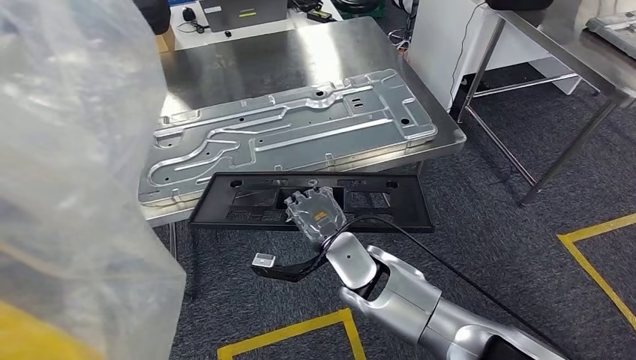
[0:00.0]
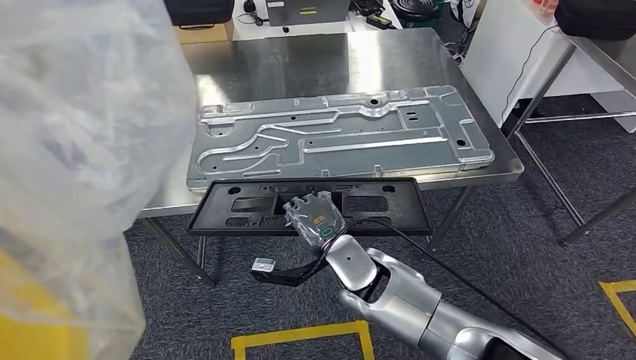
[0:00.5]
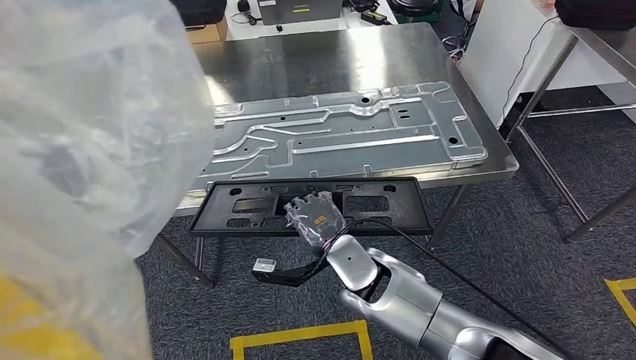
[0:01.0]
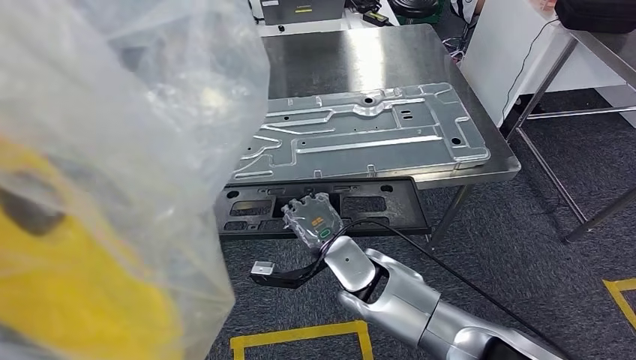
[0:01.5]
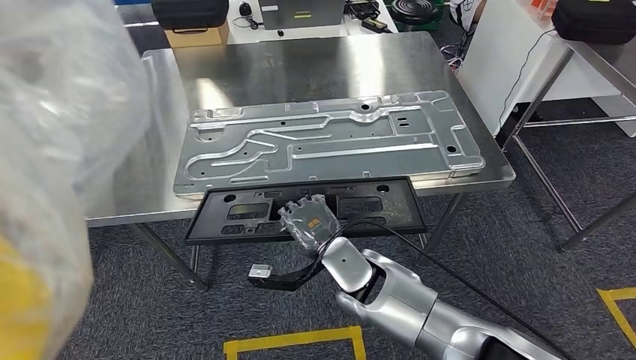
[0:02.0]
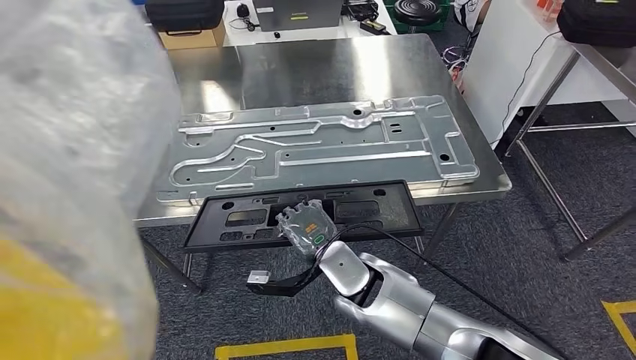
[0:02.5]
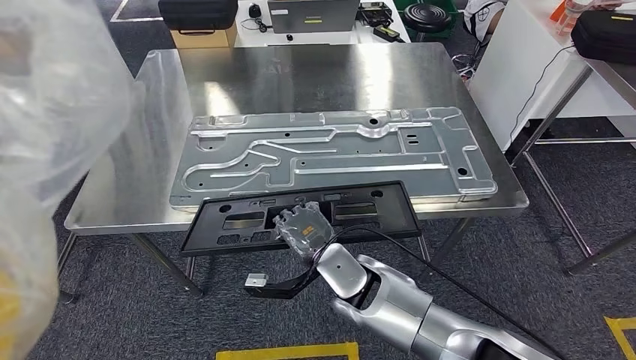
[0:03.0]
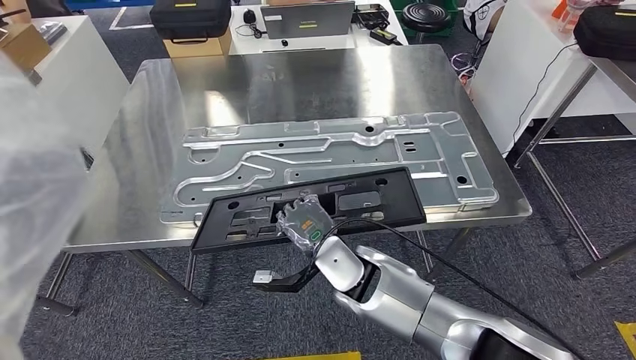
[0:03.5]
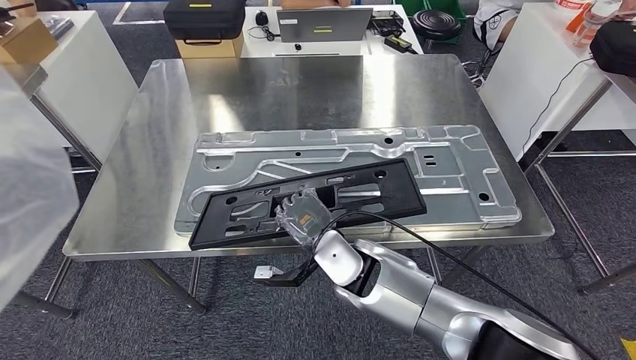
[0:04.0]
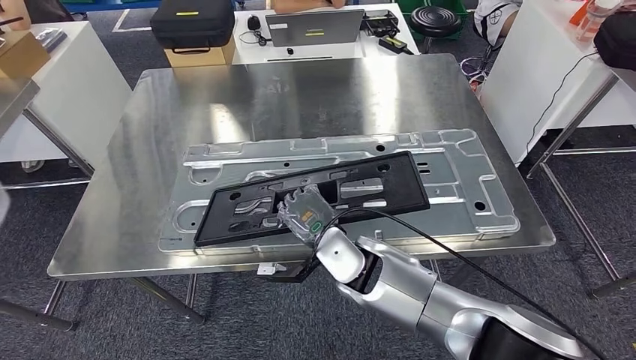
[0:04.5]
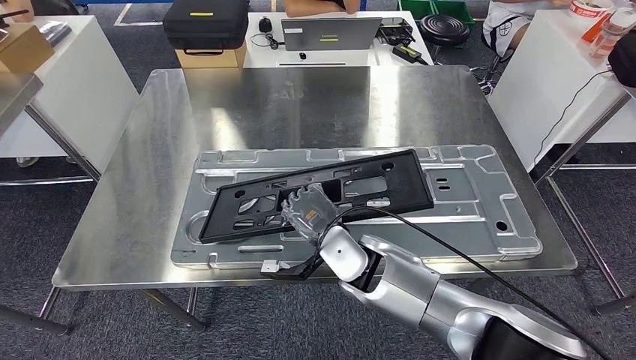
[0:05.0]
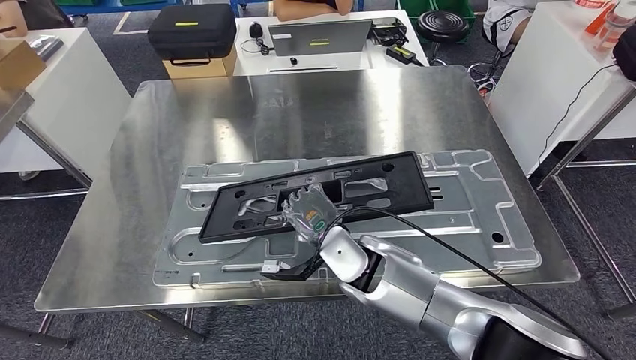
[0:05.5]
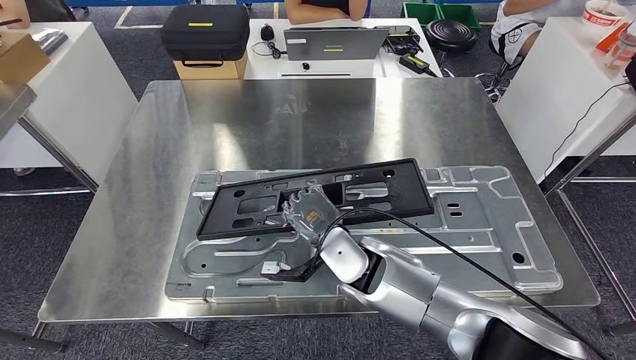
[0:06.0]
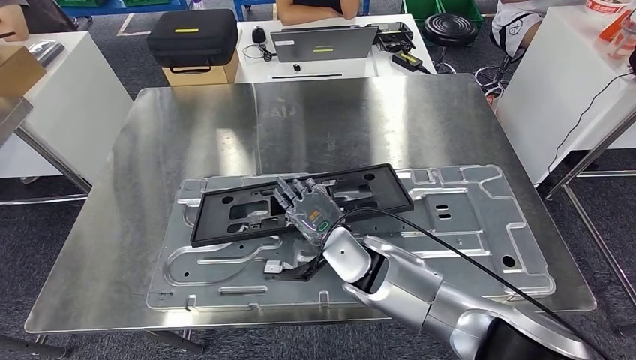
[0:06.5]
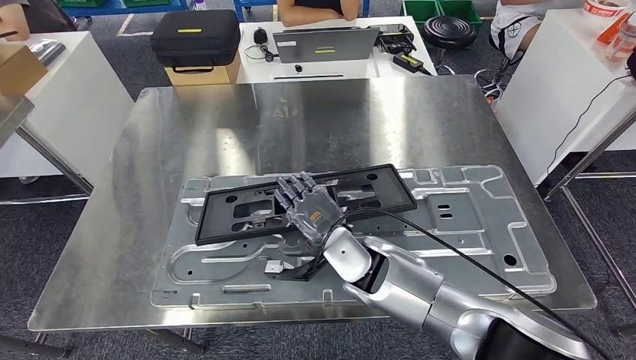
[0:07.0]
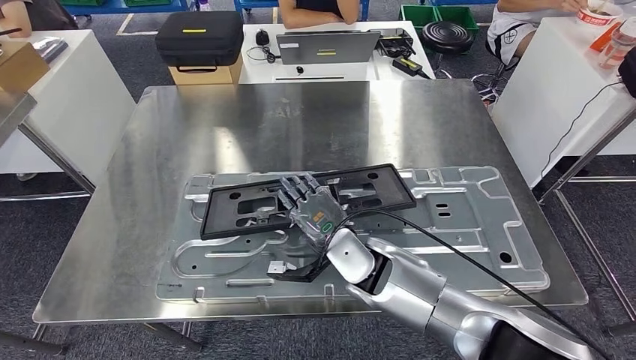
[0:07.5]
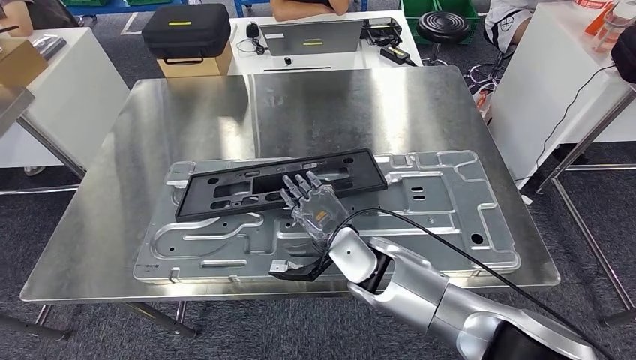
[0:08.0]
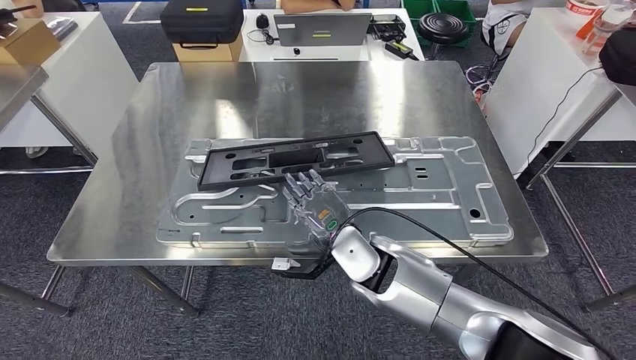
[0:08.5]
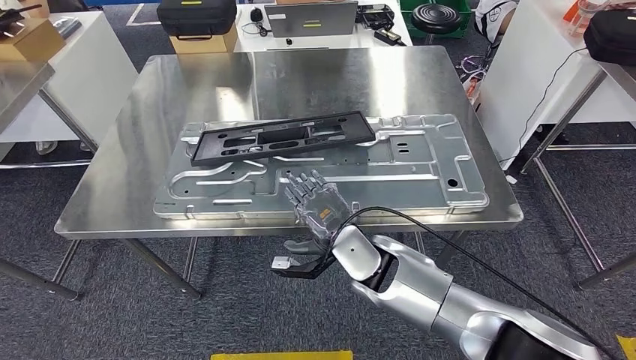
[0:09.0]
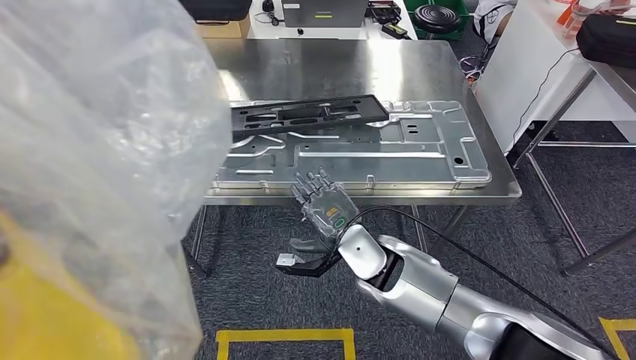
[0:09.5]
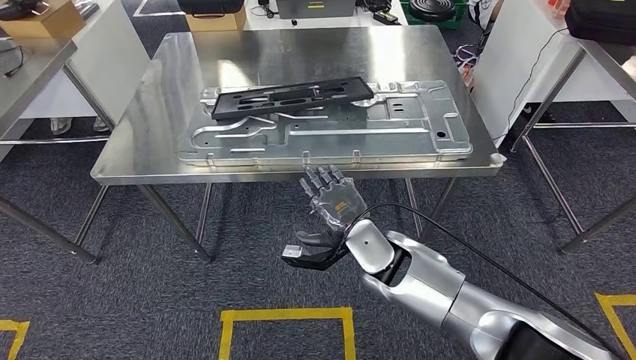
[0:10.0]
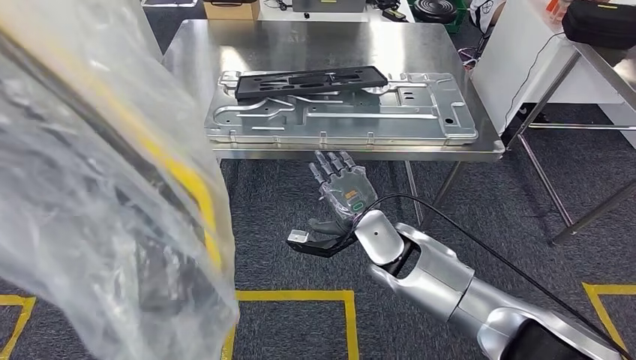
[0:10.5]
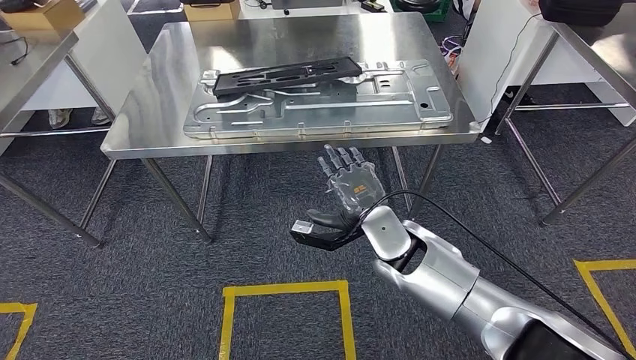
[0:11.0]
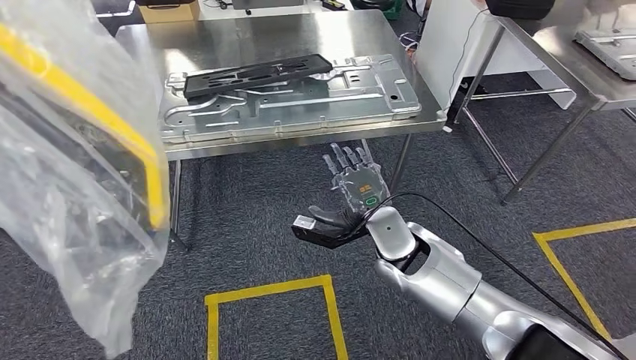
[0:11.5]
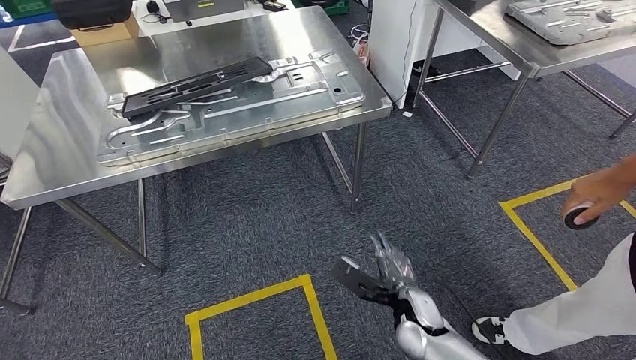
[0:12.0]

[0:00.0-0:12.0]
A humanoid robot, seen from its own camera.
Step, 0:00.0 to 0:08.5: Insert the large material into the corresponding slot on the workbench.

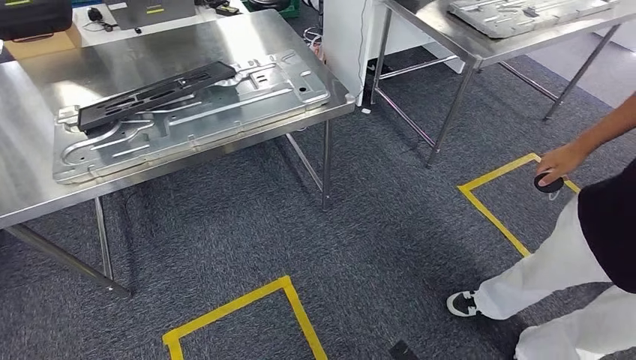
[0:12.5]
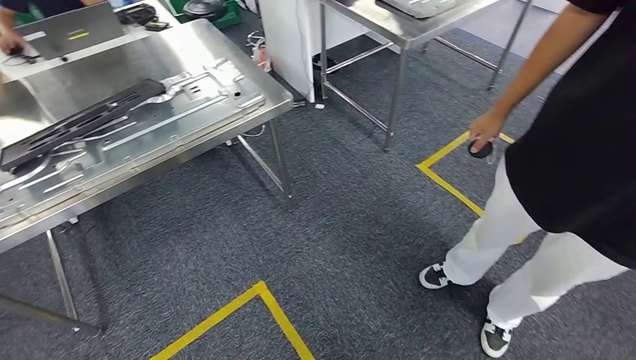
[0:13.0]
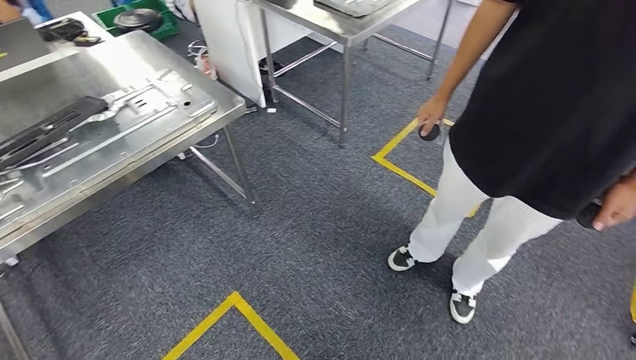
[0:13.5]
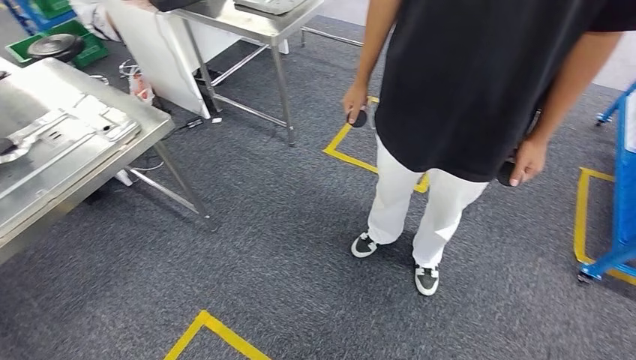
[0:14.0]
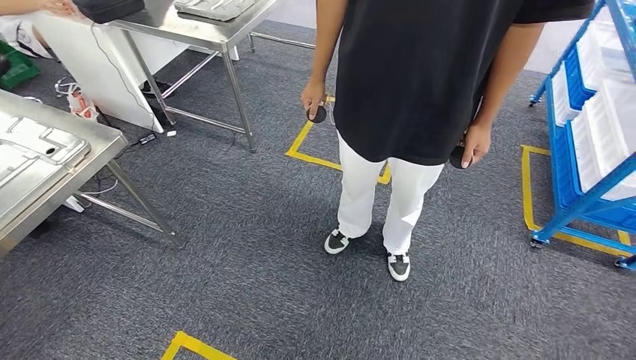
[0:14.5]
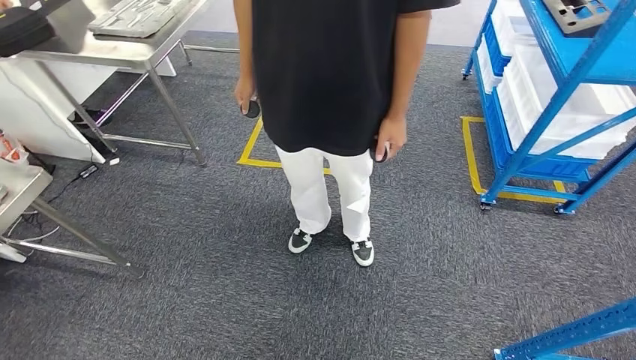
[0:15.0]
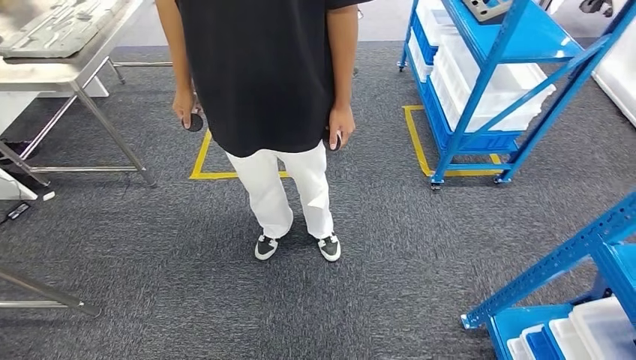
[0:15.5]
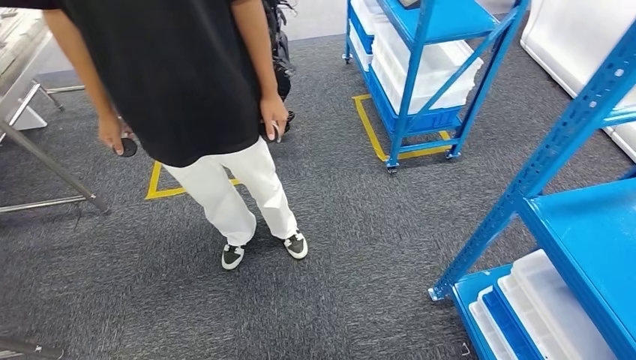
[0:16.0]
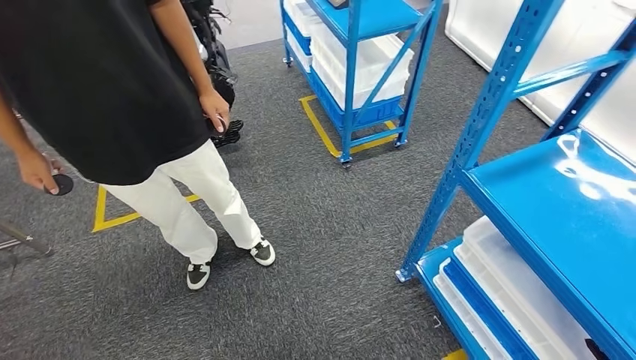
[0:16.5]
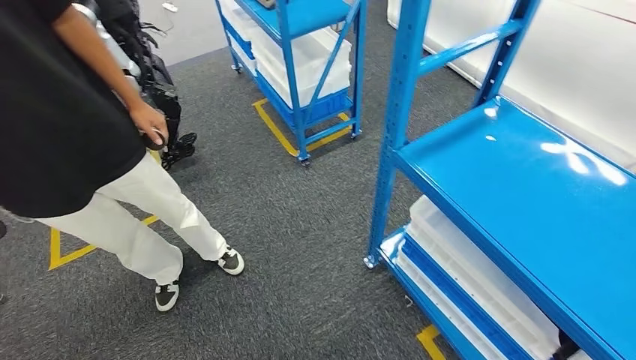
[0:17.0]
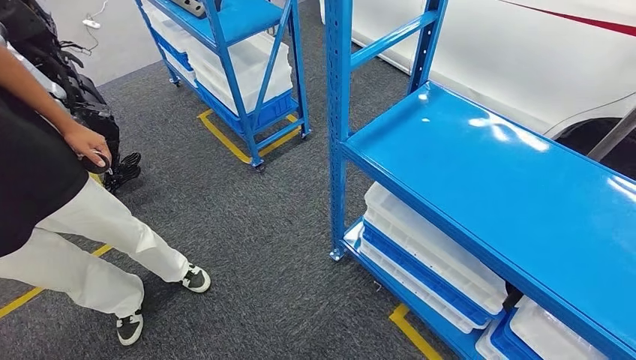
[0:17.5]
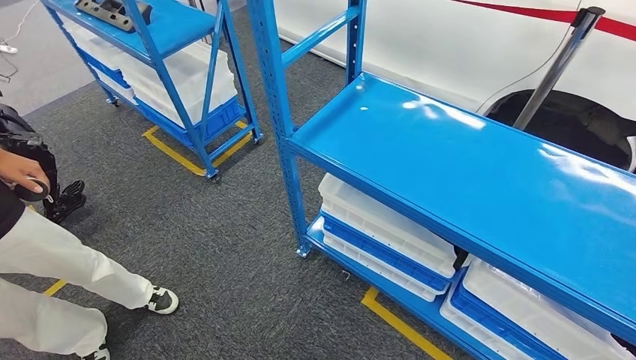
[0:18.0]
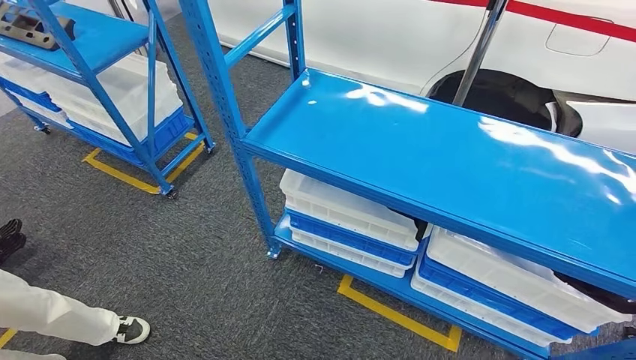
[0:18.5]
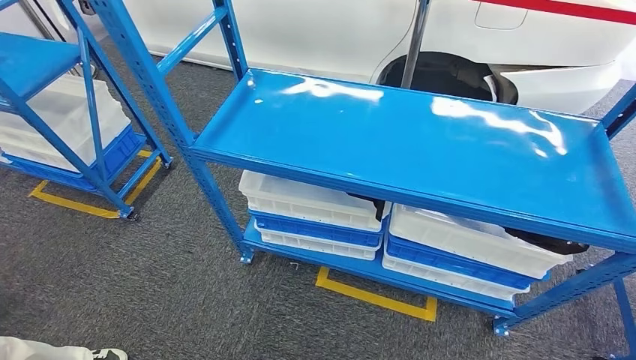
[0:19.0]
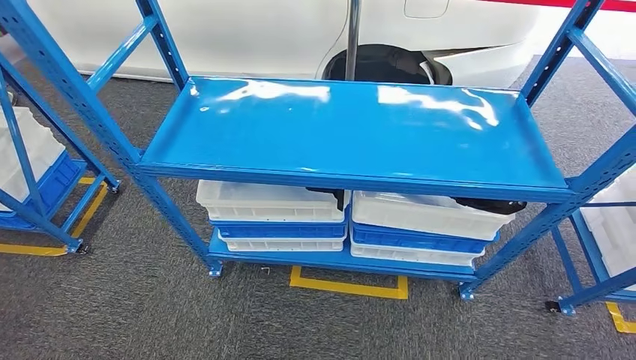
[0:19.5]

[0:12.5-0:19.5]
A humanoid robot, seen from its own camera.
Step, 0:12.5 to 0:19.5: Move to the initial position of the shelf.

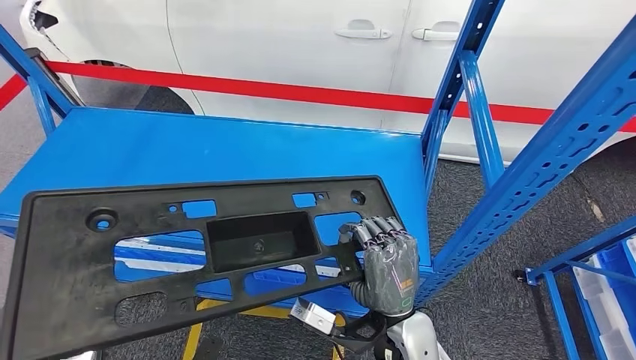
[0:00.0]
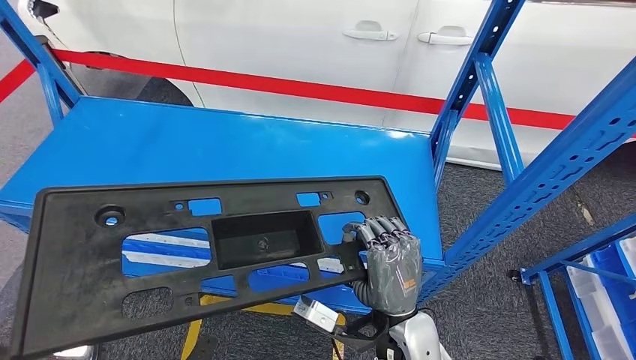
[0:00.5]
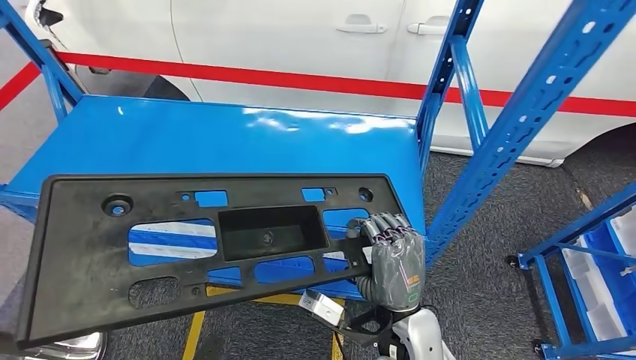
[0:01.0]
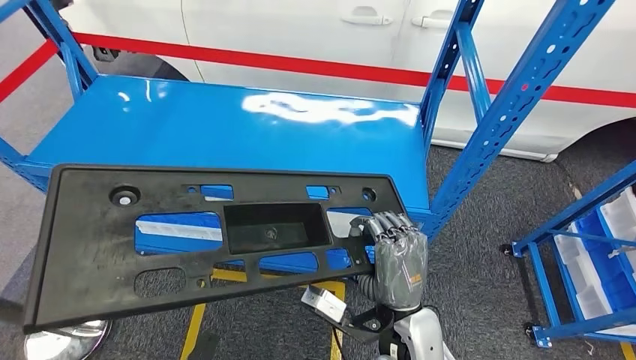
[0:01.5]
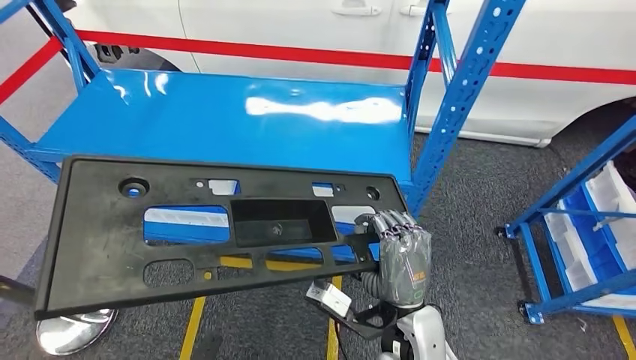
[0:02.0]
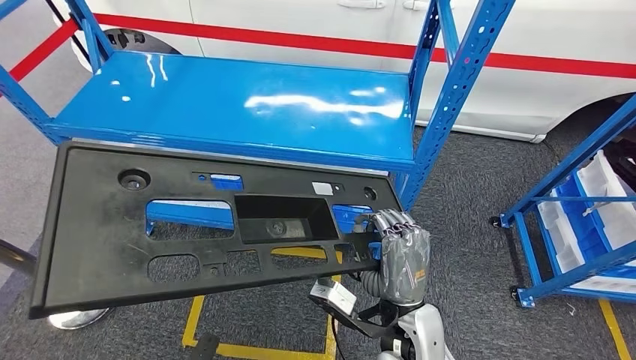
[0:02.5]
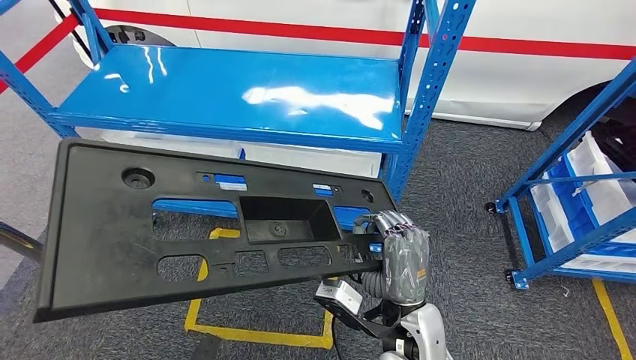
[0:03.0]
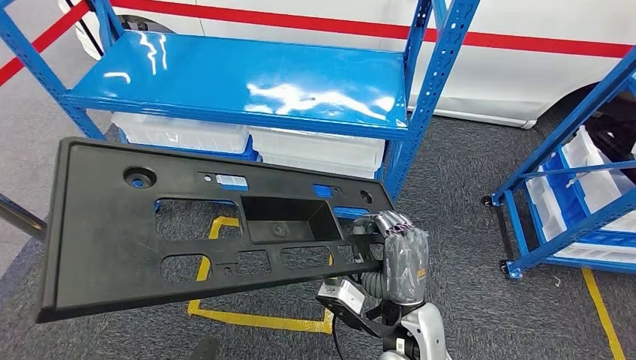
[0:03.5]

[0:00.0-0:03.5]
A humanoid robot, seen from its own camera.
Step, 0:00.0 to 0:02.0: Pick up the large material from the shelf.
